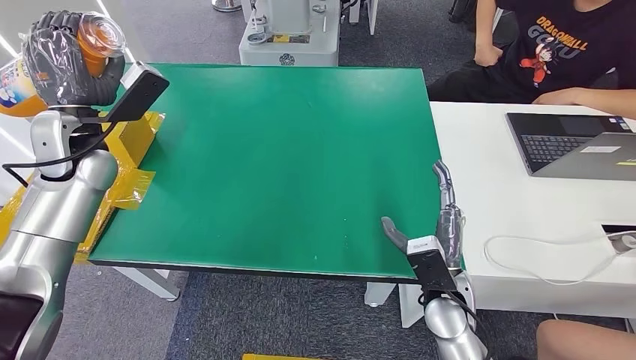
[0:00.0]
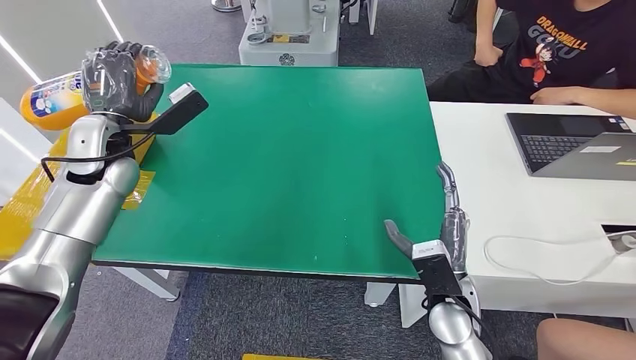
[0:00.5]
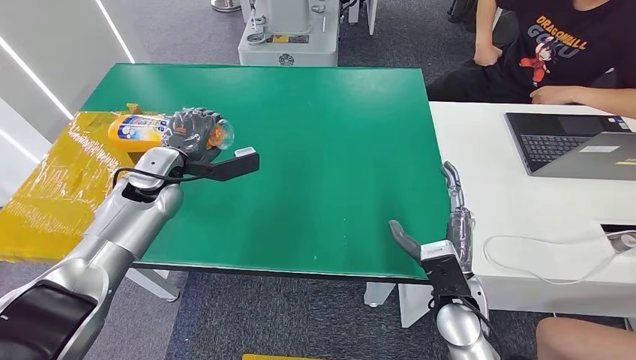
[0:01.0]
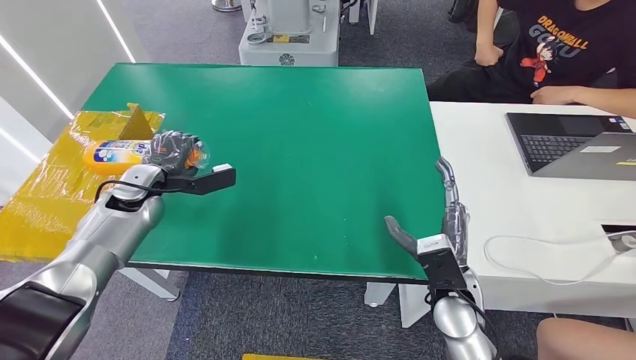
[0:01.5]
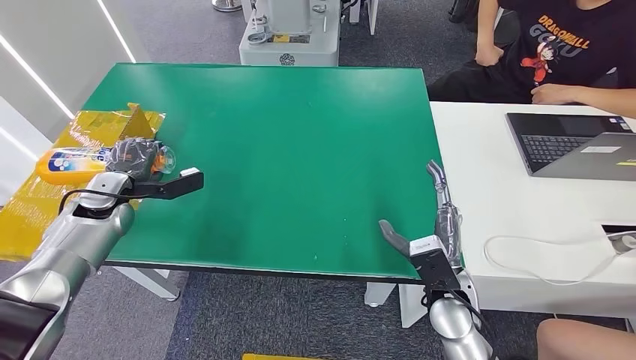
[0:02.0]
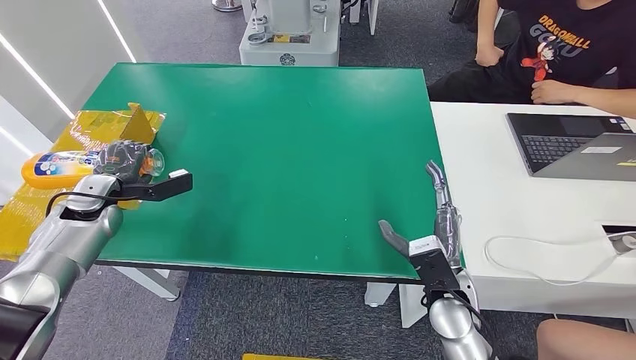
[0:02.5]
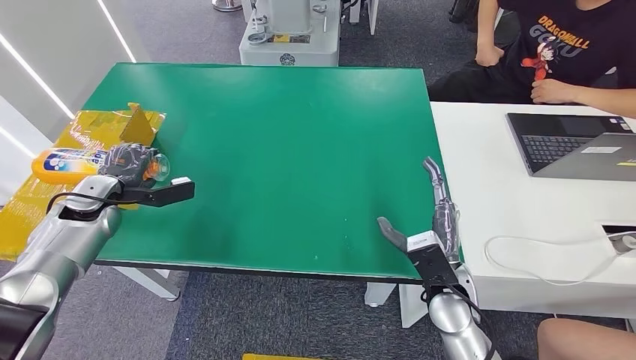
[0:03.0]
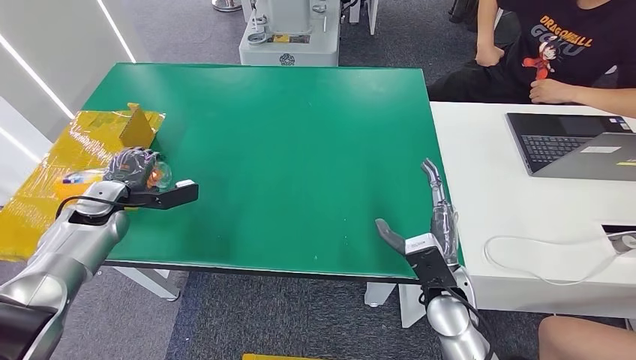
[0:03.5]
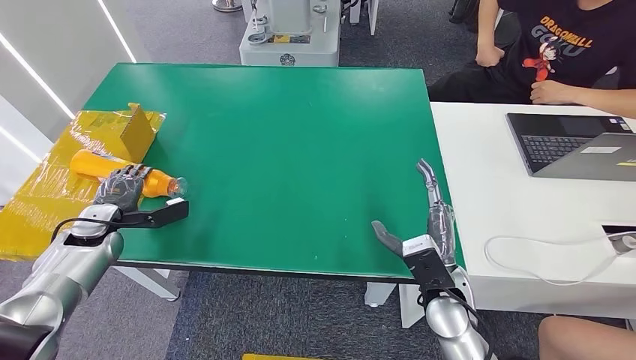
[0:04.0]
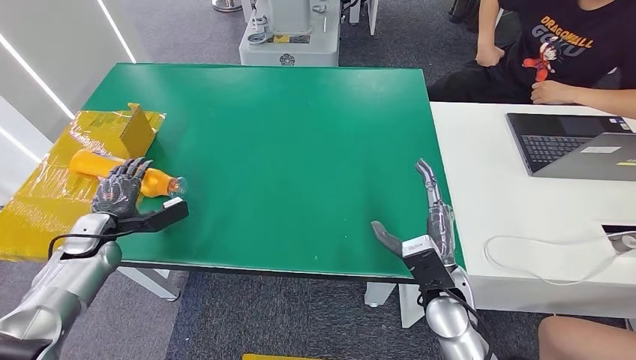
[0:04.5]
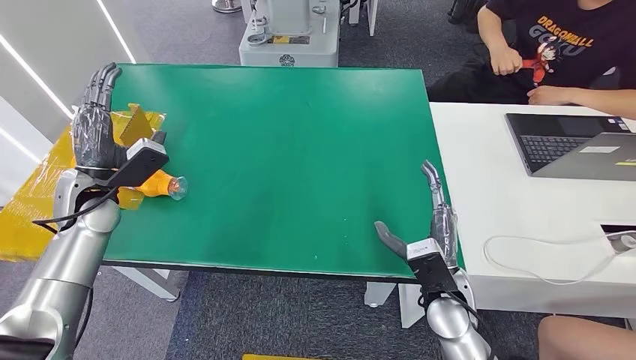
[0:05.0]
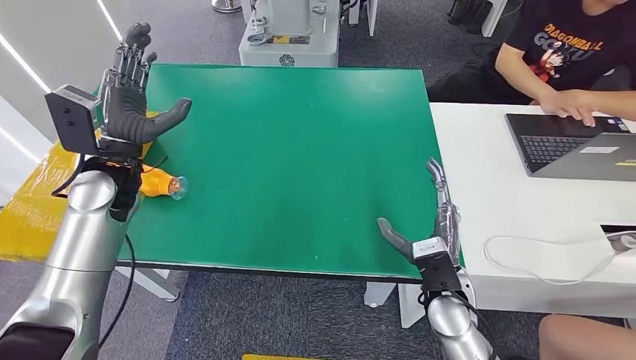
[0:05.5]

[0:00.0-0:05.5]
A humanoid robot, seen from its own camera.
Step, 0:00.0 to 0:05.5: Turn the bottle to the front side.
0:00.0 to 0:02.0: The left hand is displaced downward by about 15 cm.
0:02.0 to 0:03.5: The hands stay close to where they were, moving slightly.
0:03.5 to 0:05.5: The left hand is displaced to the right and upward by some 15 cm.
